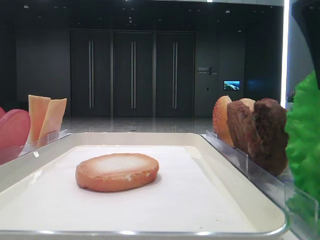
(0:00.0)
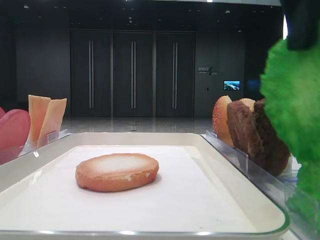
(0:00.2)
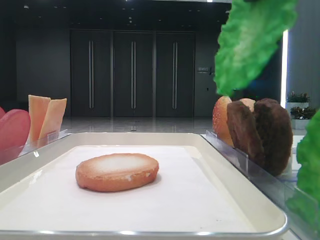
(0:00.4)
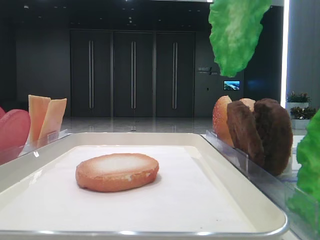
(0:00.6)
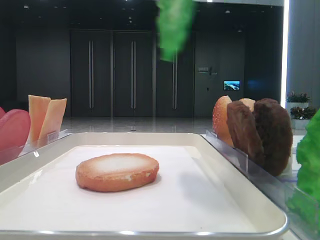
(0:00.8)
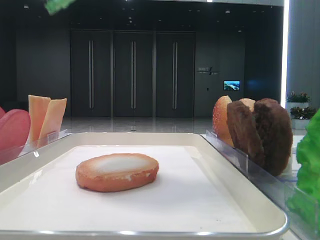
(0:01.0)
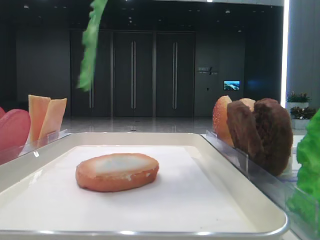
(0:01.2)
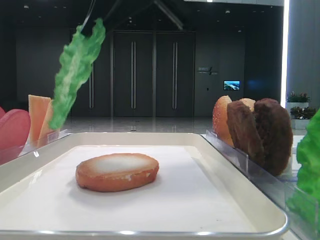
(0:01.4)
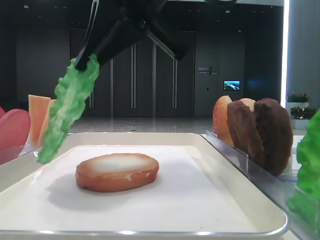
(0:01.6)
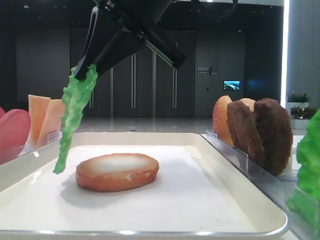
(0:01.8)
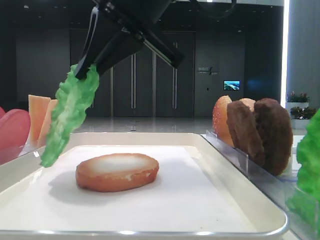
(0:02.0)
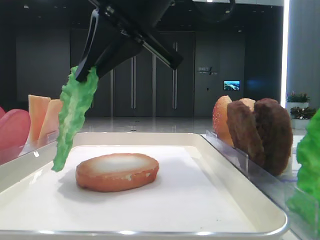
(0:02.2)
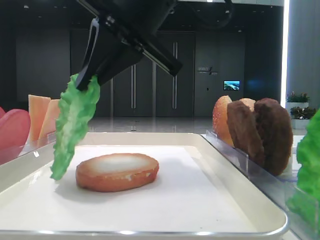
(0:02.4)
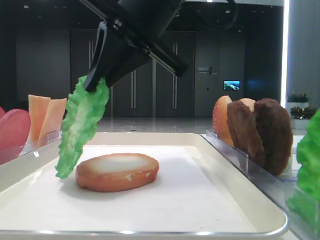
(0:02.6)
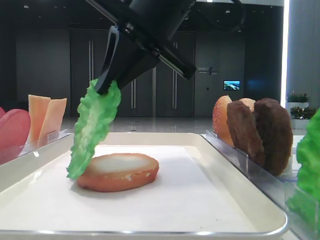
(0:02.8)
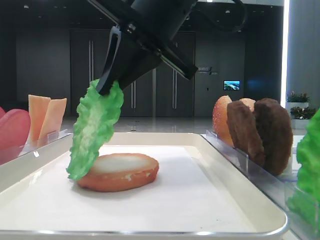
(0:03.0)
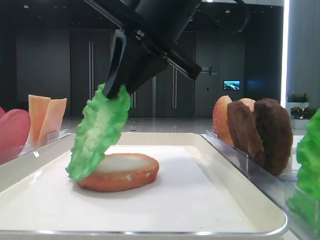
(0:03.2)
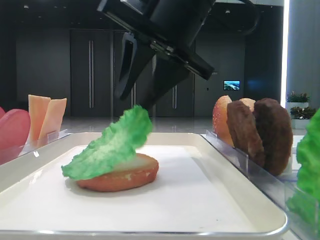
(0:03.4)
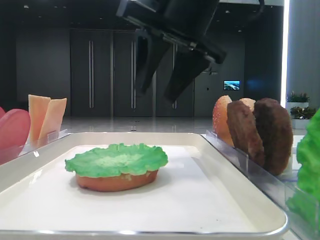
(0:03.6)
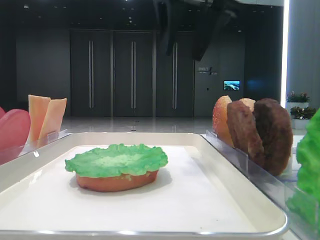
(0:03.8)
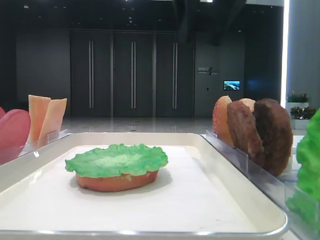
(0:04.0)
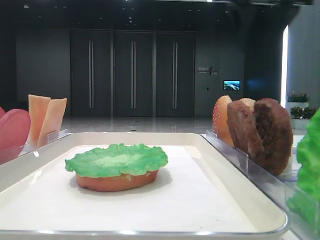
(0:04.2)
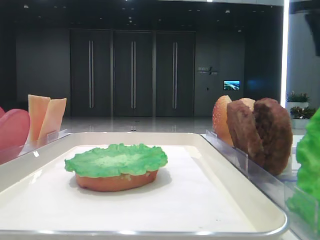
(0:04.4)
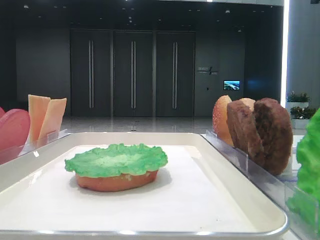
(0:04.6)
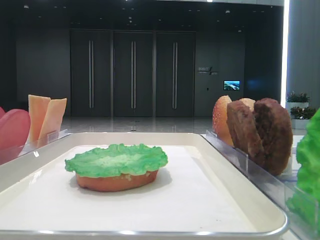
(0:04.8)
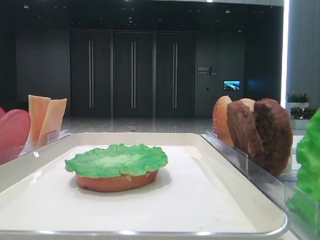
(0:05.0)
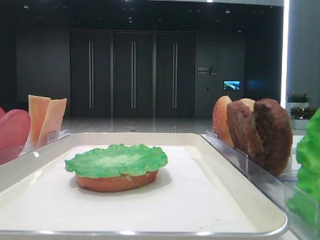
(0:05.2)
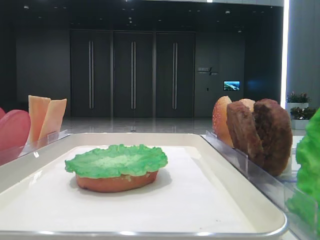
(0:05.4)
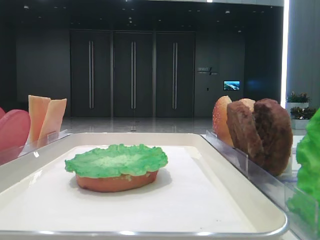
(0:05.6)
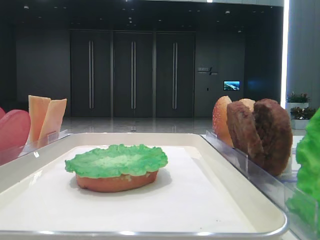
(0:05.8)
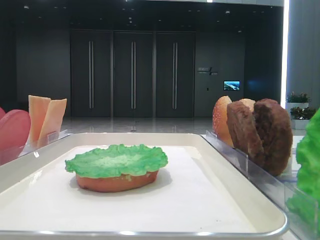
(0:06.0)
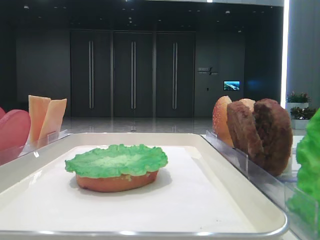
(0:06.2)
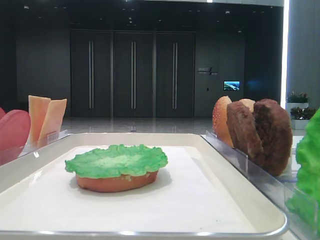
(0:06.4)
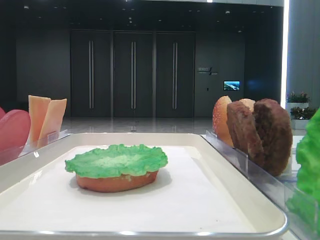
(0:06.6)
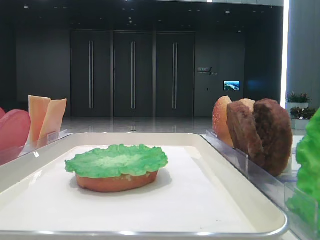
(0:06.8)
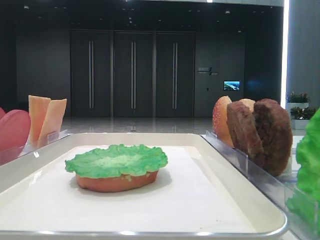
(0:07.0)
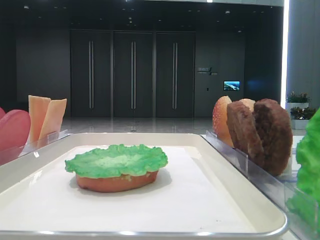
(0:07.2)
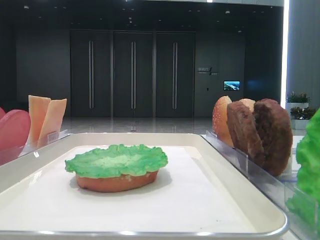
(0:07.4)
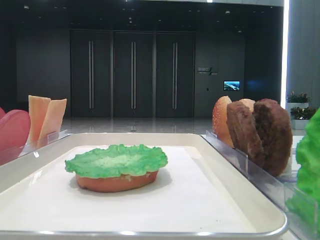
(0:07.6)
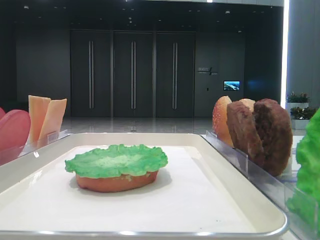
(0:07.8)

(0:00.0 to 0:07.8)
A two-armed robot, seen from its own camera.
Step, 0:00.0 - 0:03.4: Place the lettuce leaf on the bottom bread with the right hand.
0:00.0 - 0:01.6: The right gripper goes roughly 15 cm to the left and forward.
0:01.6 - 0:03.2: The grippers make only small movements.
0:03.2 - 0:04.6: The right gripper is displaced to the right by approximately 30 cm, and opens its fingers.
0:04.6 - 0:06.2: The right gripper heads backward, covering some 40 cm.
0:06.2 - 0:07.8: Both grippers stay about where they are.

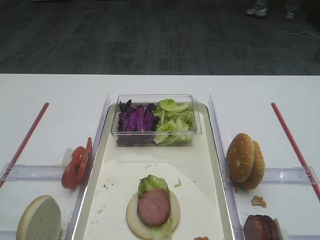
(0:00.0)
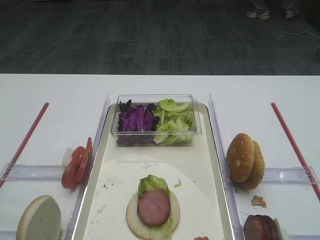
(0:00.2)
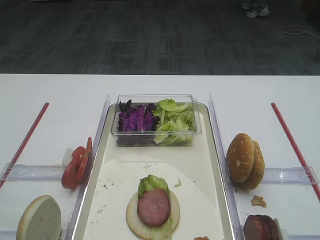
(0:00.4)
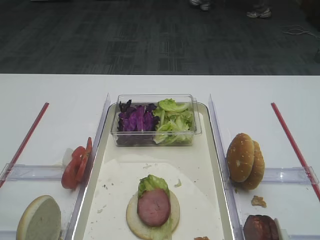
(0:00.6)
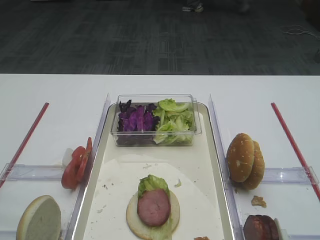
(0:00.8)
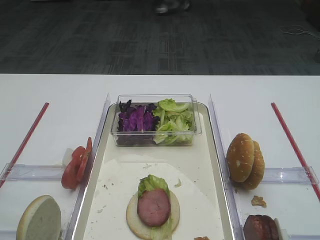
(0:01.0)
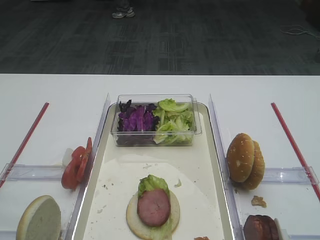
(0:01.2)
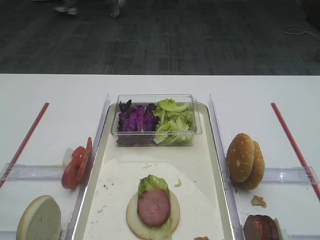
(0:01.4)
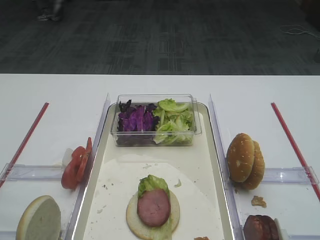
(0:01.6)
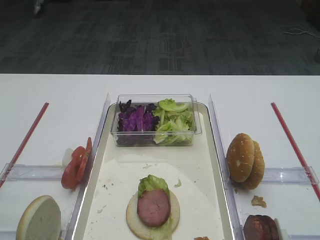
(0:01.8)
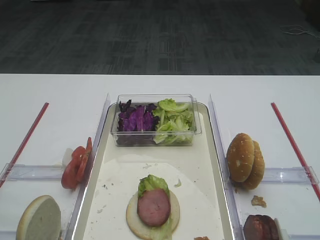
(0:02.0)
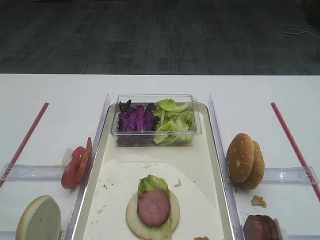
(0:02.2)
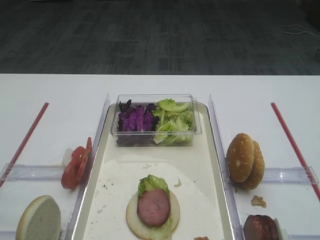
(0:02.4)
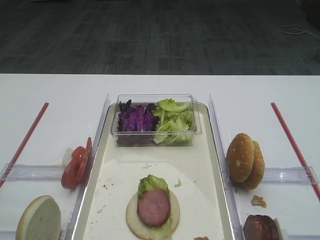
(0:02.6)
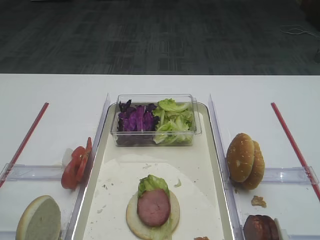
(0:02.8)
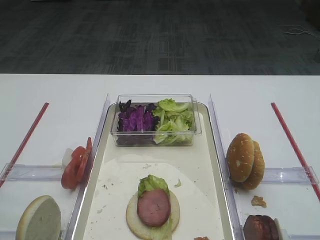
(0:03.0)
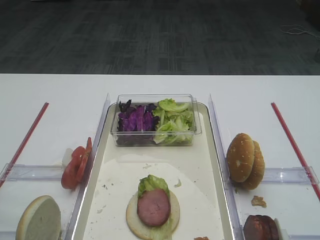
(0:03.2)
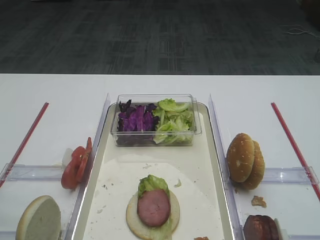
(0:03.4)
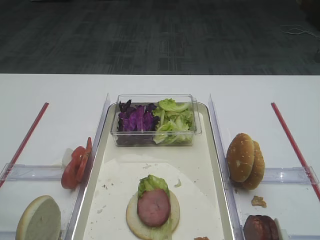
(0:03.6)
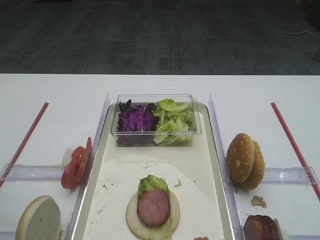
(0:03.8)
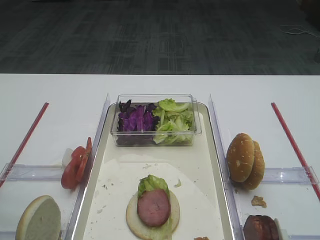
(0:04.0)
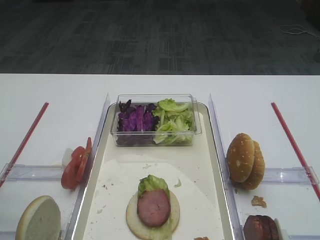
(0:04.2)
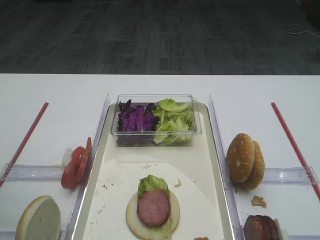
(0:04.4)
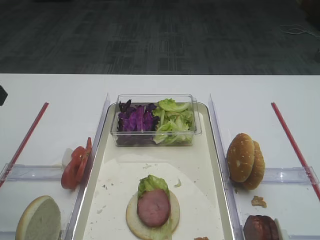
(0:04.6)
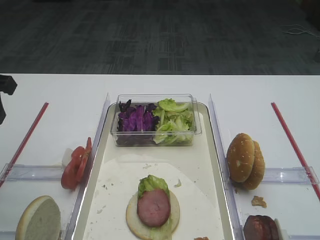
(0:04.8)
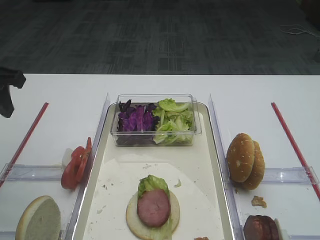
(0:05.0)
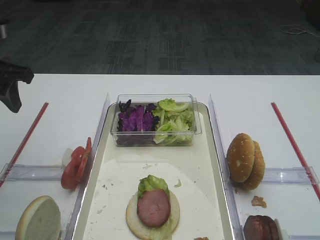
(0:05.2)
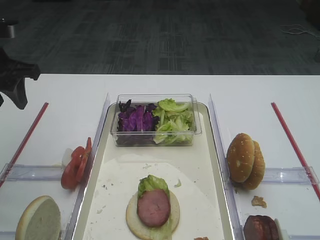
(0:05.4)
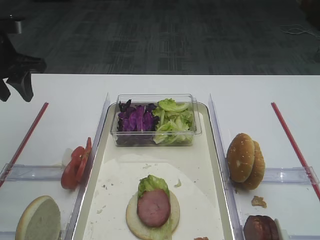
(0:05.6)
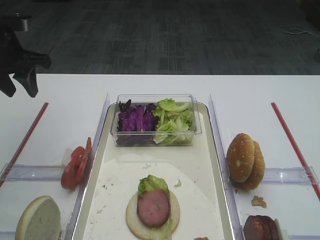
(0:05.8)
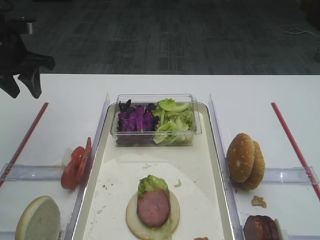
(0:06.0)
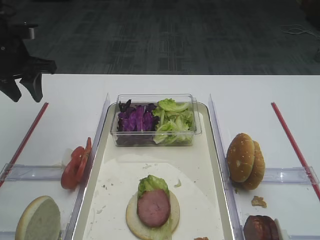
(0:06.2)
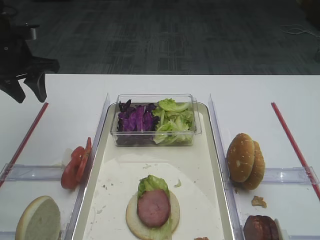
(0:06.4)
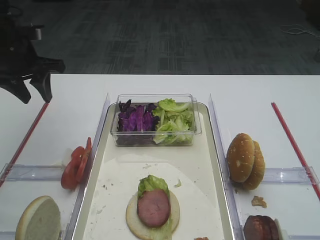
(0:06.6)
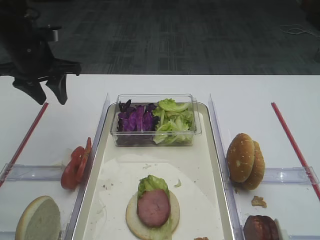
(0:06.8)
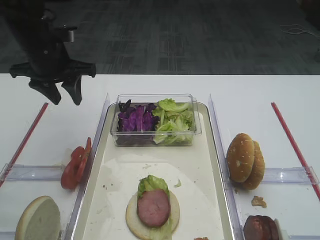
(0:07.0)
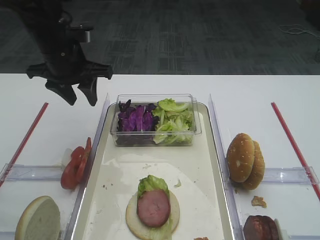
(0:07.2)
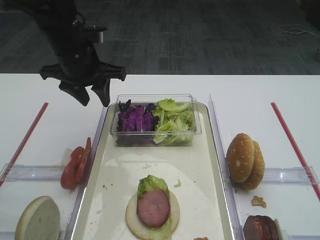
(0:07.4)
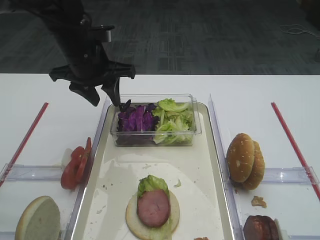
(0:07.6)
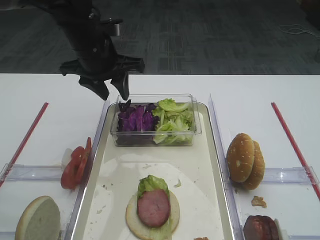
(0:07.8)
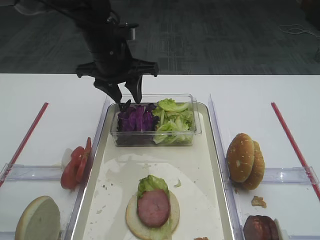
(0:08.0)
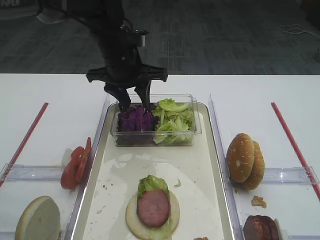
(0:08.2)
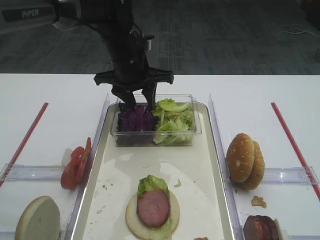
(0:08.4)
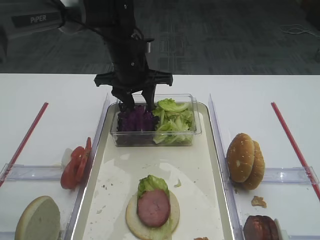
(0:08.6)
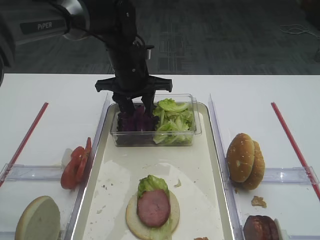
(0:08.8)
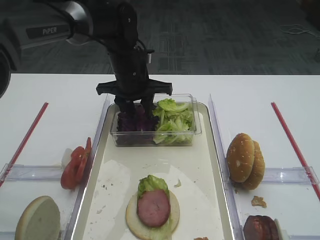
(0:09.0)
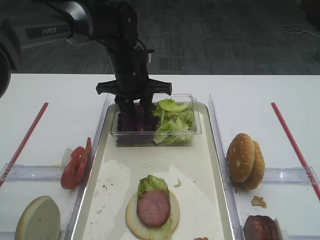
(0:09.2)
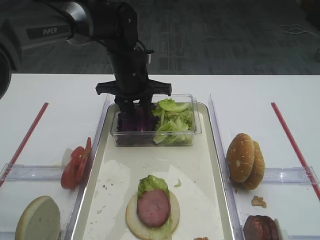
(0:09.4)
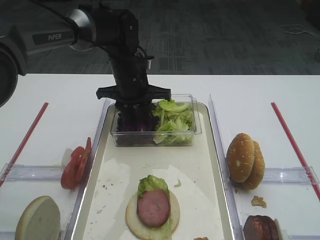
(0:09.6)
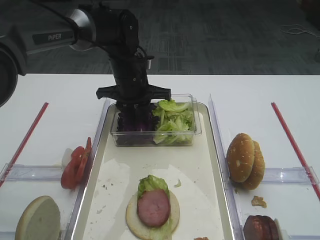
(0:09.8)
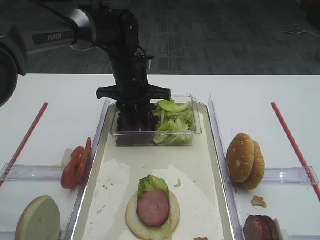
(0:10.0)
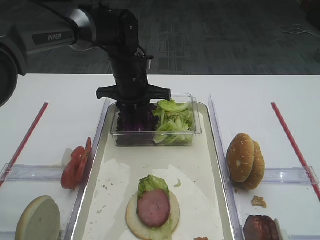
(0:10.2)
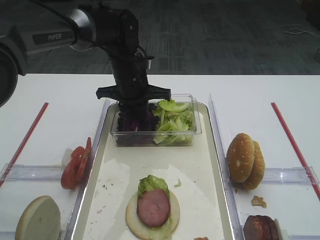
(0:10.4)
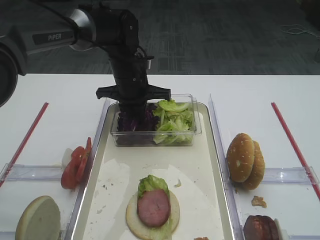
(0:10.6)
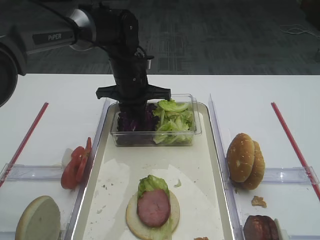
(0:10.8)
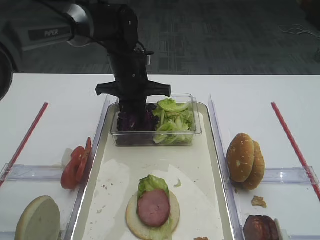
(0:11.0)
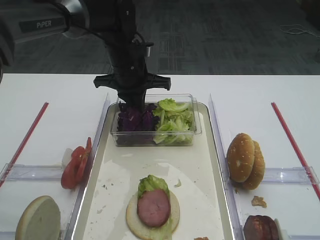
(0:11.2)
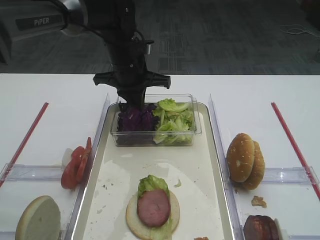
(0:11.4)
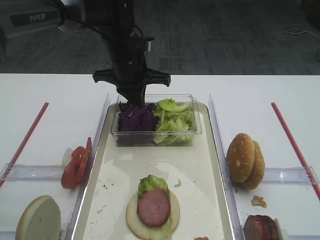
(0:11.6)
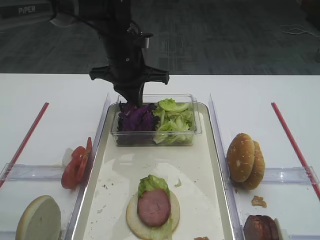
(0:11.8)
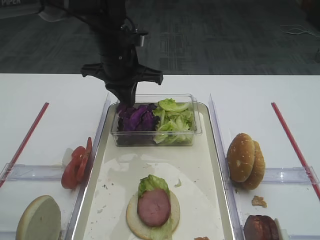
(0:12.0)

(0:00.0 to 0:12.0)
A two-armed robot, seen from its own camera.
Step, 0:00.0 - 0:12.0: Pick up the purple cabbage with the left gripper.
0:04.4 - 0:06.0: The left gripper is displaced forward by roughly 20 cm.
0:06.0 - 0:07.6: The left gripper shifts some 15 cm to the right.
0:07.6 - 0:09.0: The left gripper travels to the right and downward by some 10 cm.
0:09.0 - 0:10.4: The left gripper closes.
0:10.4 - 0:12.0: The left gripper travels upward by roughly 5 cm.

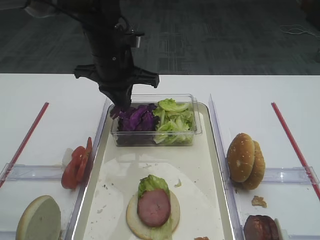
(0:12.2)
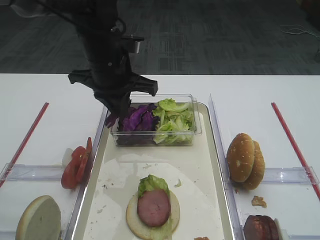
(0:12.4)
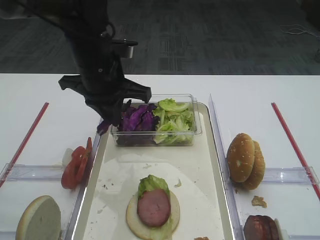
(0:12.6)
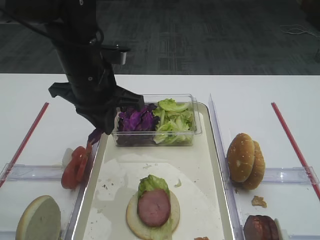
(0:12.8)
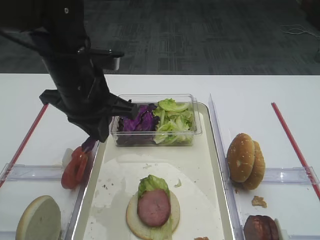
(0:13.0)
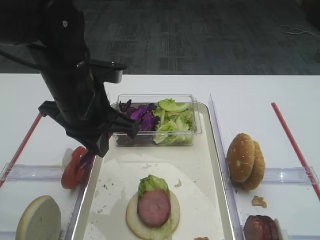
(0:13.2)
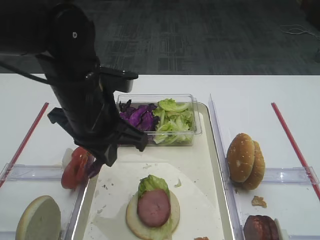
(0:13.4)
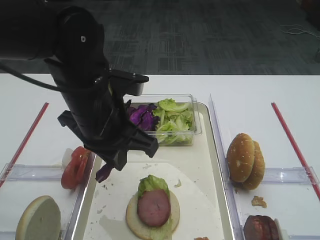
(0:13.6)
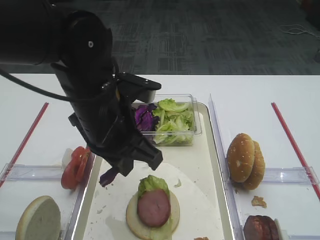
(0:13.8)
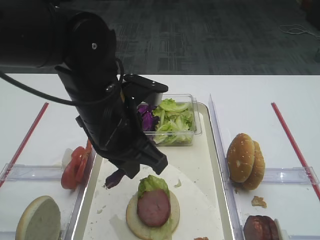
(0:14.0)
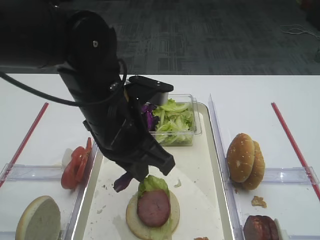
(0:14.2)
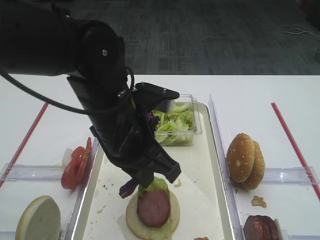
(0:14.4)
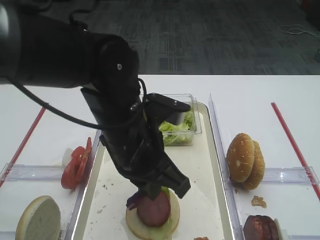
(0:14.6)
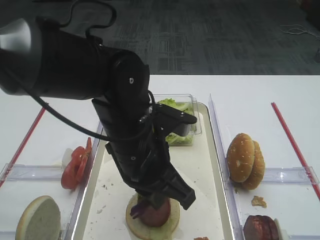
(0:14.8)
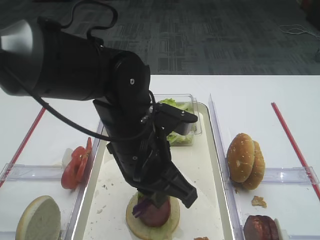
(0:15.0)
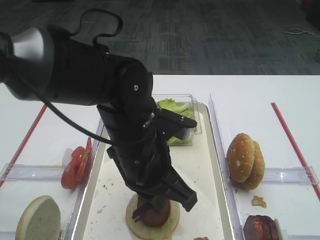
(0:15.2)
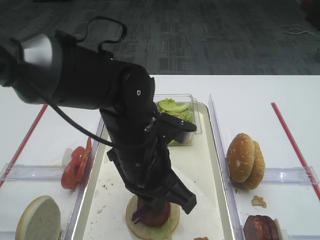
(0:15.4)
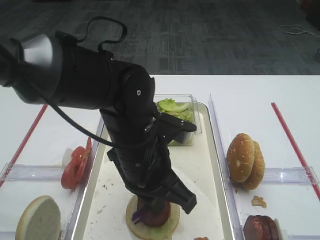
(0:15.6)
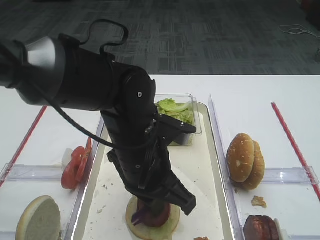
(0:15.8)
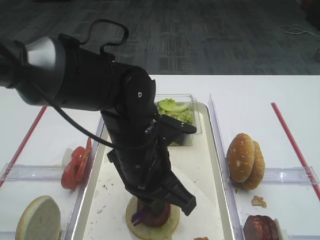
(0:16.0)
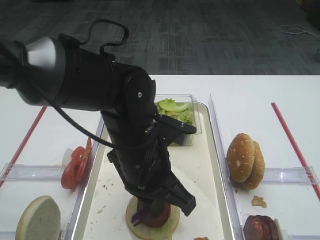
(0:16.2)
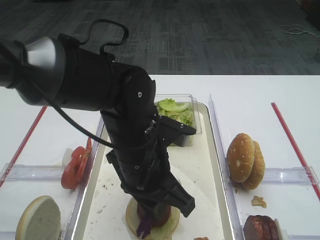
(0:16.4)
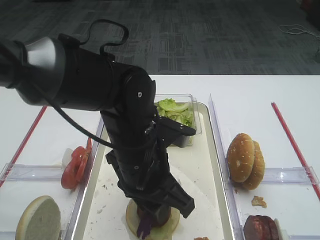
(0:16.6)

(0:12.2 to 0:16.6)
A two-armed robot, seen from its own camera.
0:12.2 - 0:13.6: The left gripper travels backward by about 15 cm.
0:13.6 - 0:15.2: The left gripper is displaced to the right by approximately 5 cm.
0:15.2 - 0:16.6: The left gripper opens up.
